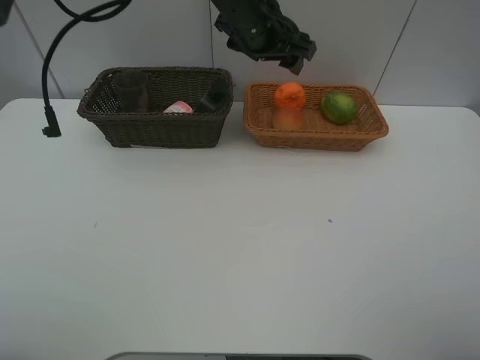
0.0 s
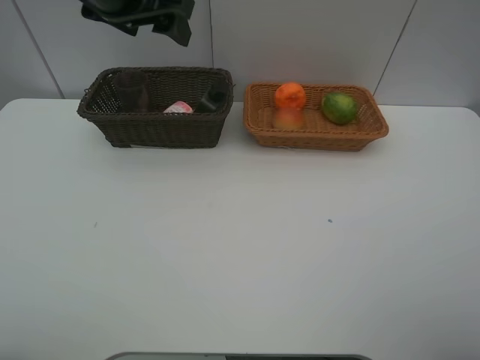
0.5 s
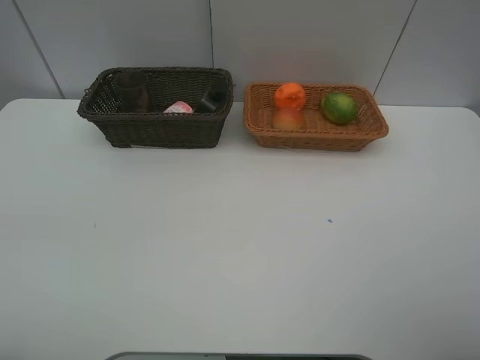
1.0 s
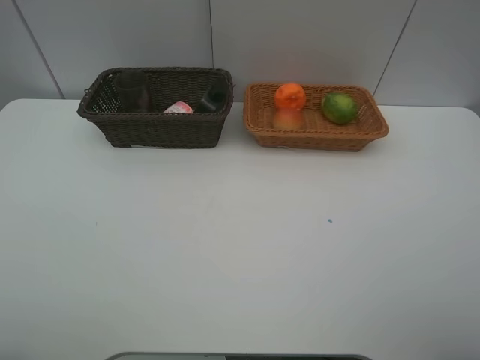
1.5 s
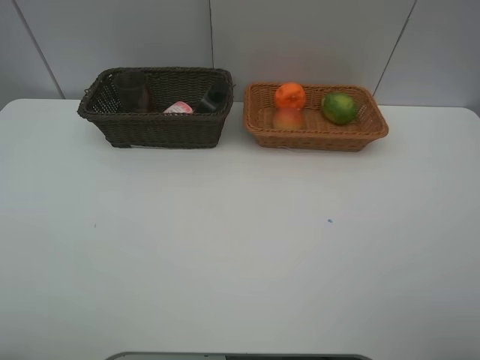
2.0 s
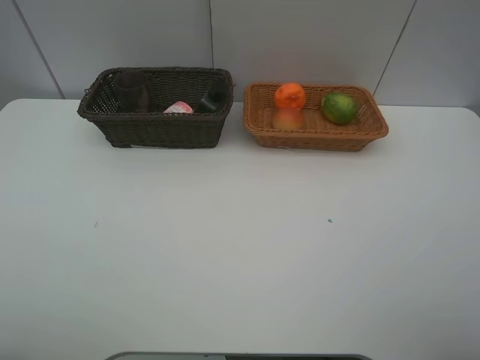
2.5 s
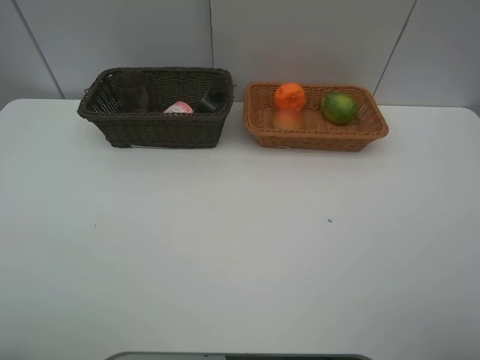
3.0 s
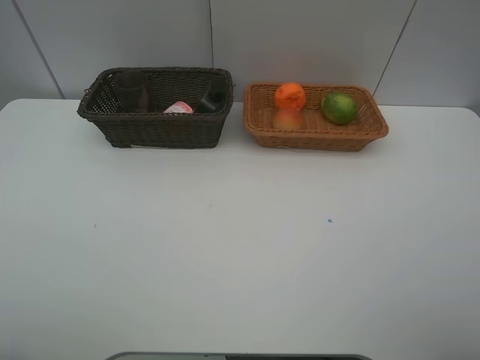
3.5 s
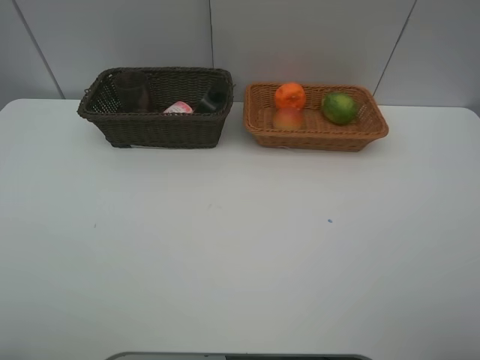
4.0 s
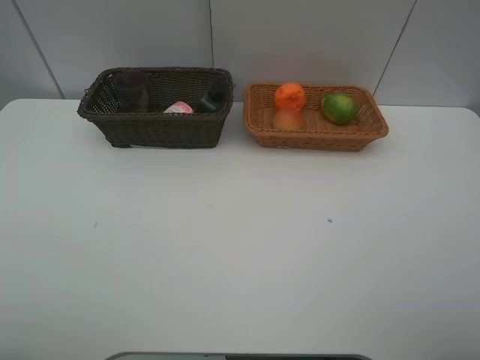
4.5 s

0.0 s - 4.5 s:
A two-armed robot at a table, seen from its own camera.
Task of the whole recording: place multiple objects separately in different baskets.
0.0 s - 2.0 s: The left gripper is displaced backward and to the left by some 50 cm.

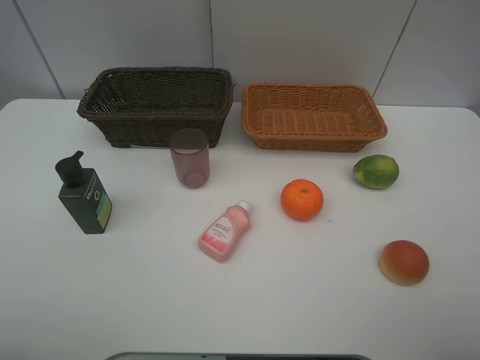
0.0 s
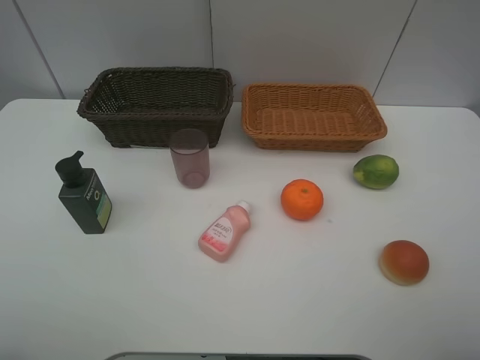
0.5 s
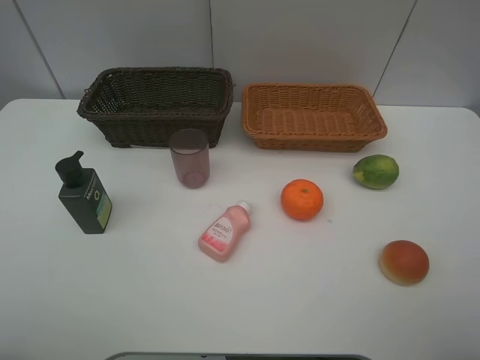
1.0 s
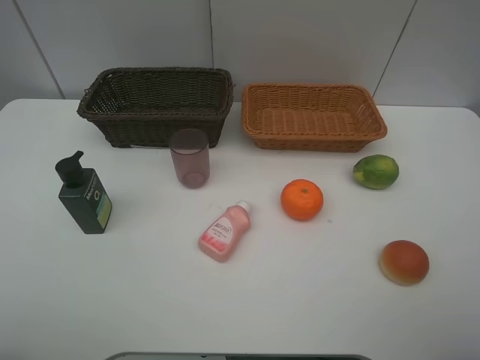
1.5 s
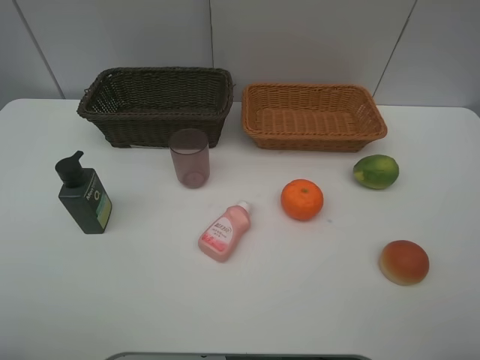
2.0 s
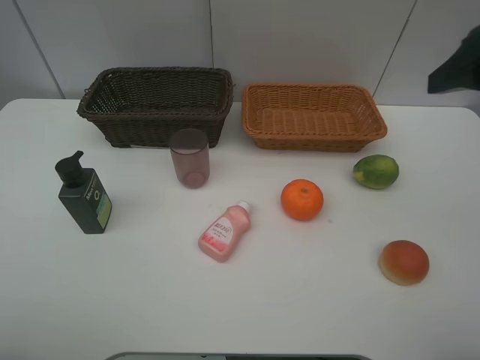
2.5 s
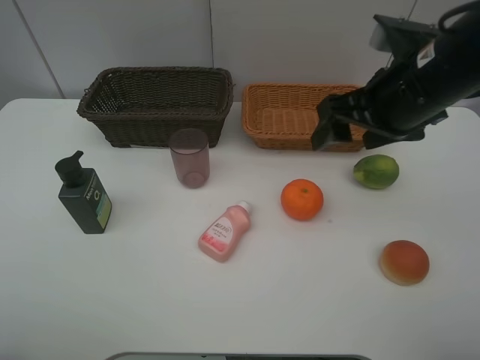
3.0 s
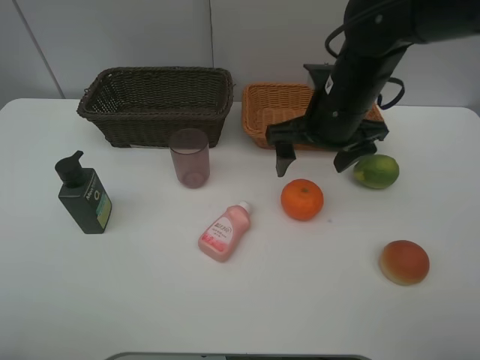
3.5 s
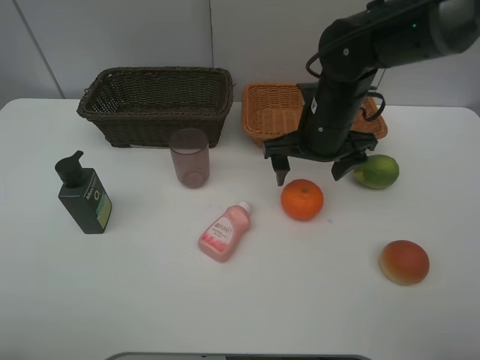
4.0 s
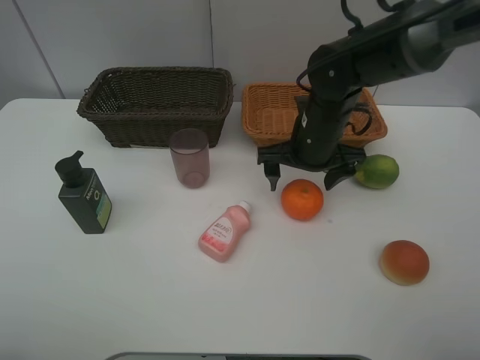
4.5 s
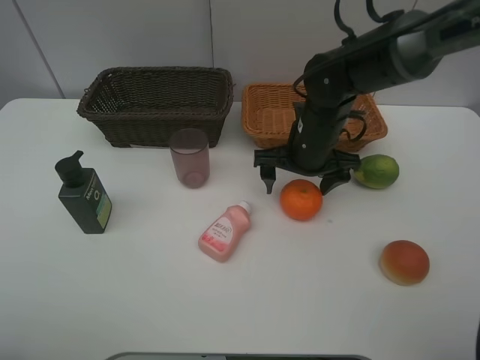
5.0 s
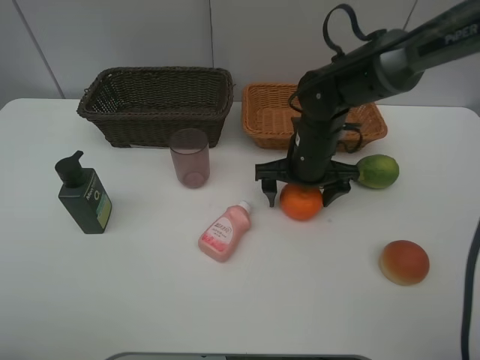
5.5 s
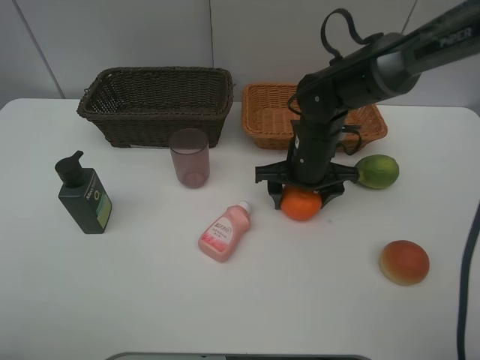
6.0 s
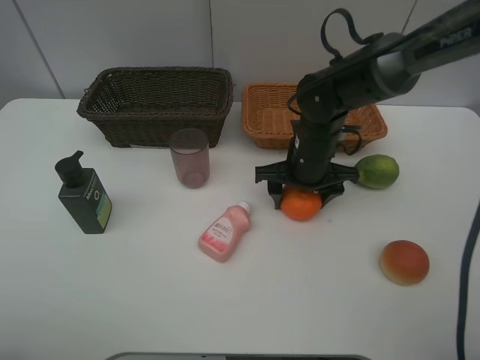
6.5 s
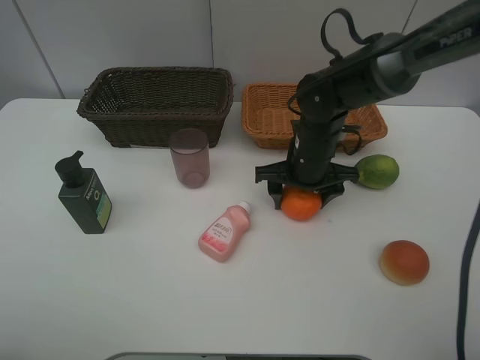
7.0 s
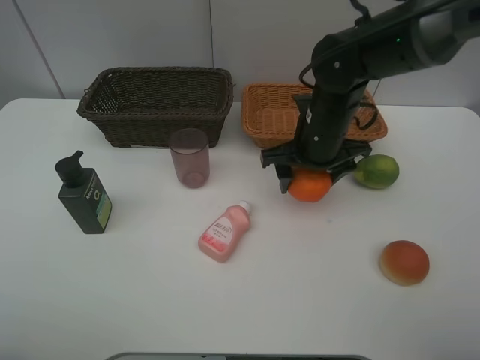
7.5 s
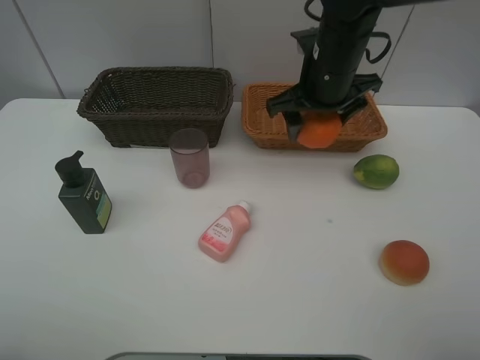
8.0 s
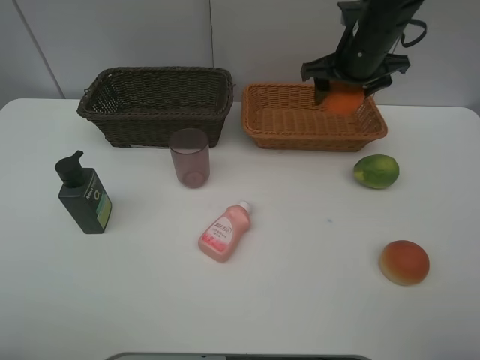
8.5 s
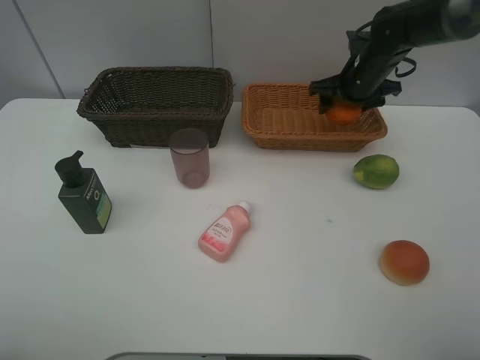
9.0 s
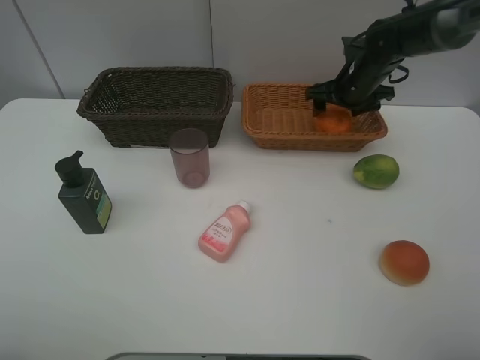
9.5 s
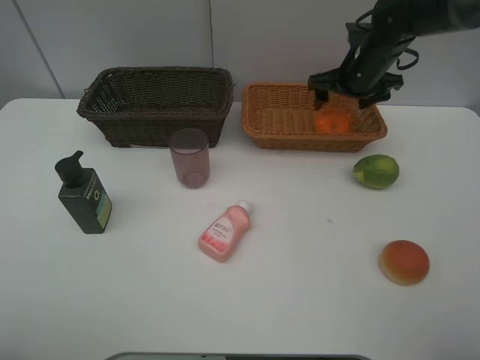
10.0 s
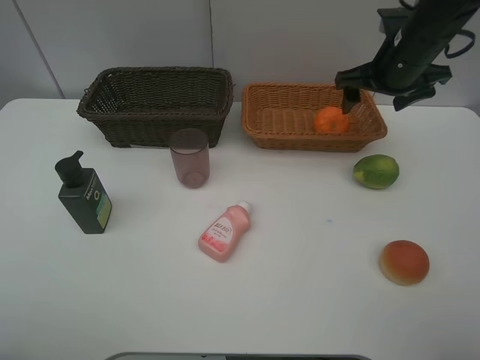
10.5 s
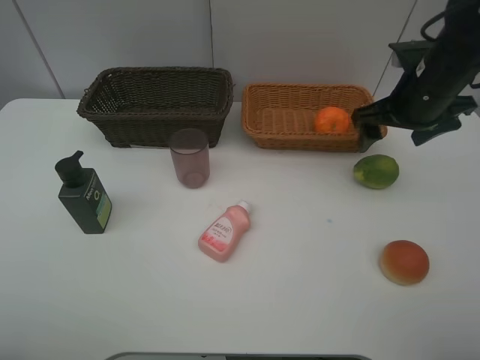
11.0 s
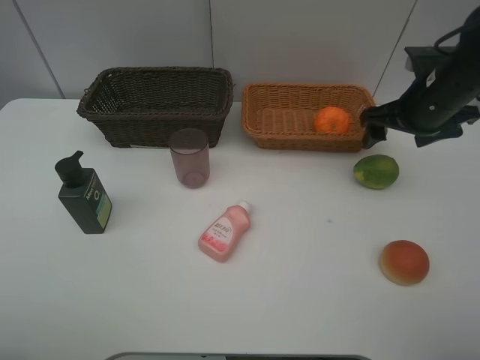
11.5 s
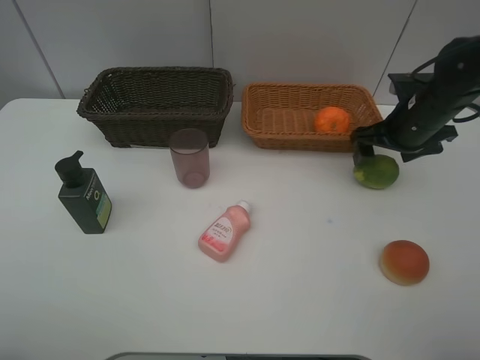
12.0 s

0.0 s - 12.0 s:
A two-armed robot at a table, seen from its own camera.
Task of the whole recording: place multiple objects separately in different baskets.
Step, 0.0 s - 7.0 s: Pick up the orange with right gripper.
Step, 7.5 s - 10.0 s: Place the orange in the light basket with right gripper.
2.0 s - 4.0 s: The right gripper heads forward, downward and to the left, covering approximately 35 cm, and opens its fingers.
4.0 s - 6.0 s: The right gripper is displaced downward by roughly 5 cm, and closes.
6.0 s - 8.0 s: The right gripper travels upward by approximately 15 cm.
8.0 s - 10.0 s: The right gripper shifts roughly 15 cm to the right and forward, and opens.
10.0 s - 12.0 s: The right gripper goes some 10 cm backward and to the right.

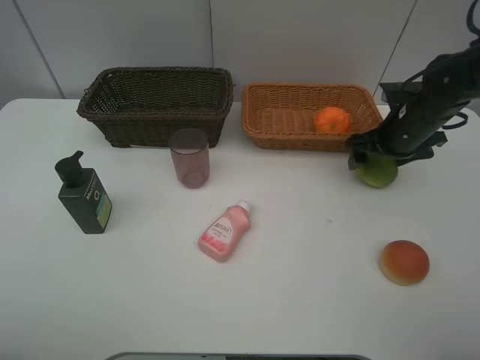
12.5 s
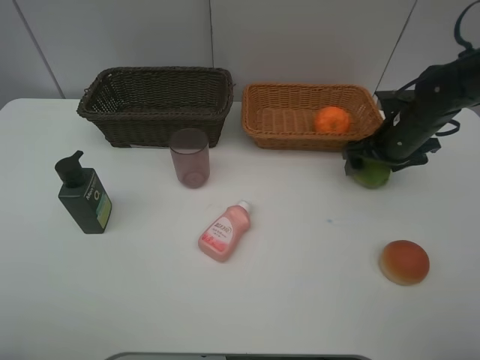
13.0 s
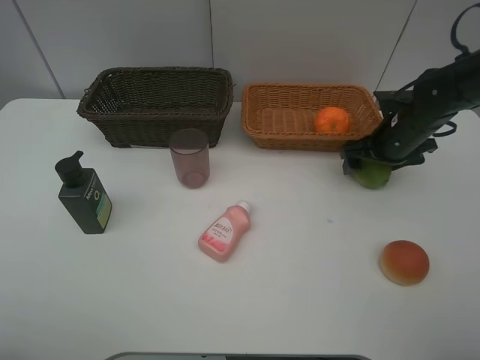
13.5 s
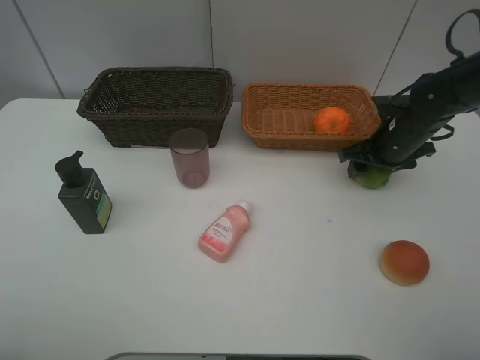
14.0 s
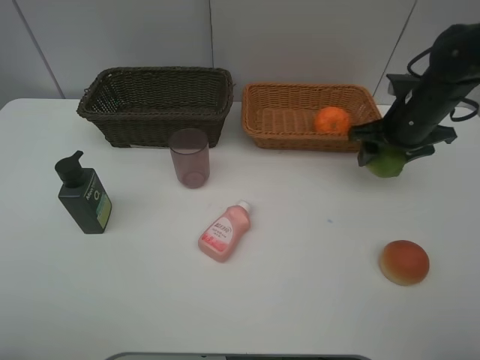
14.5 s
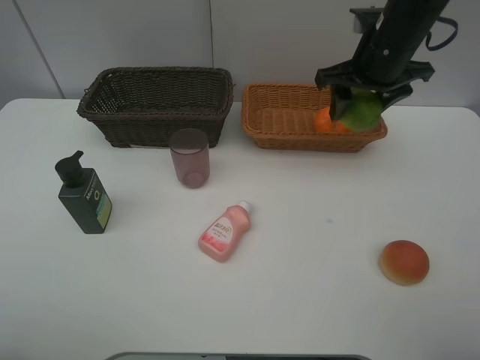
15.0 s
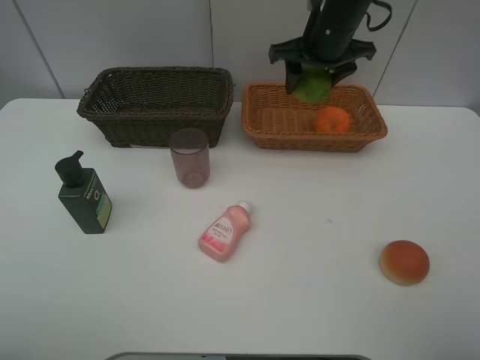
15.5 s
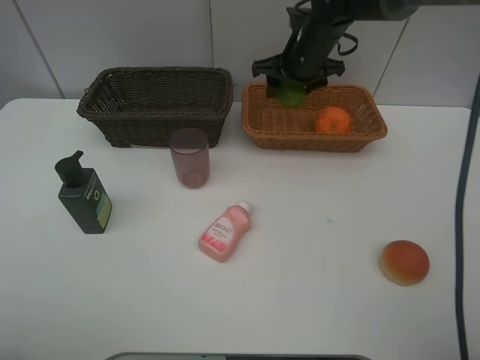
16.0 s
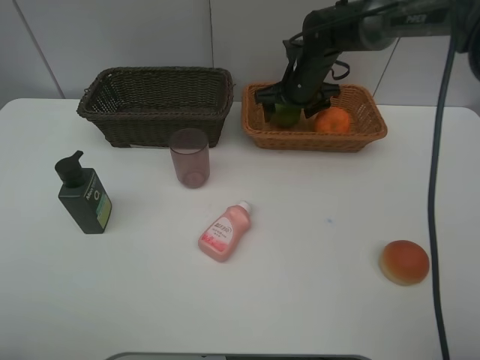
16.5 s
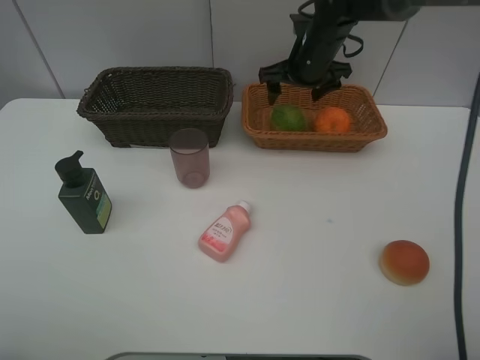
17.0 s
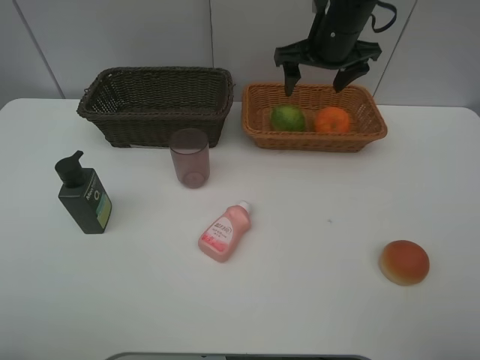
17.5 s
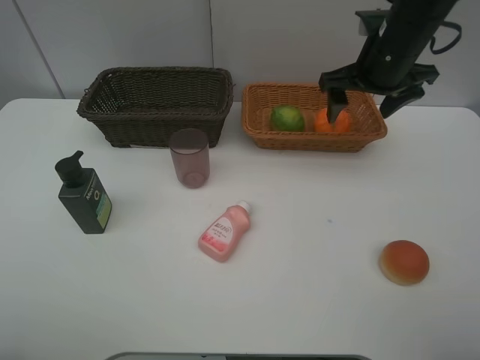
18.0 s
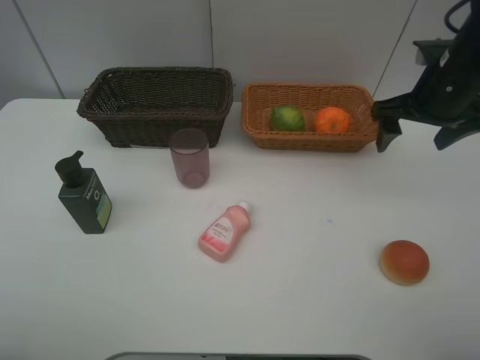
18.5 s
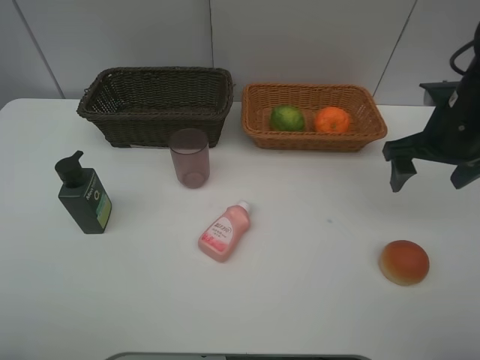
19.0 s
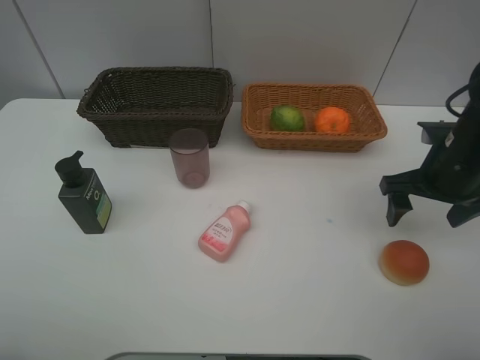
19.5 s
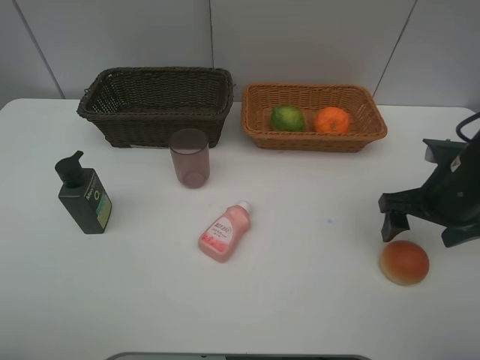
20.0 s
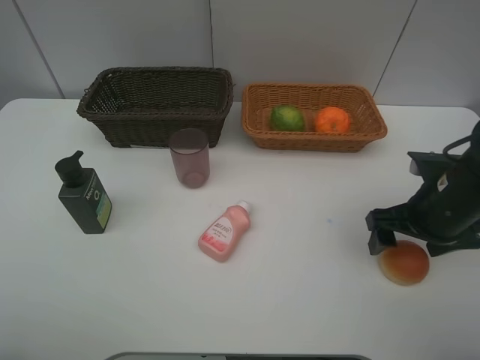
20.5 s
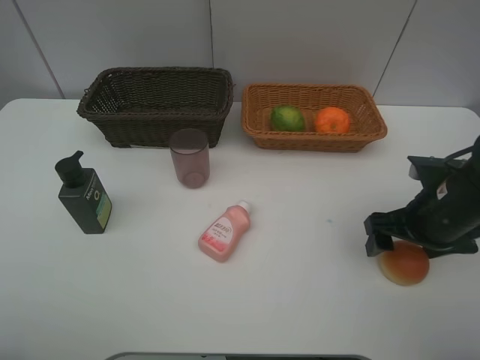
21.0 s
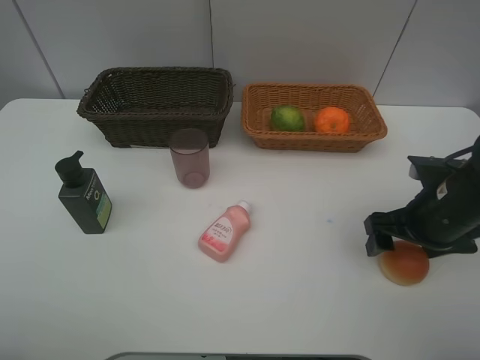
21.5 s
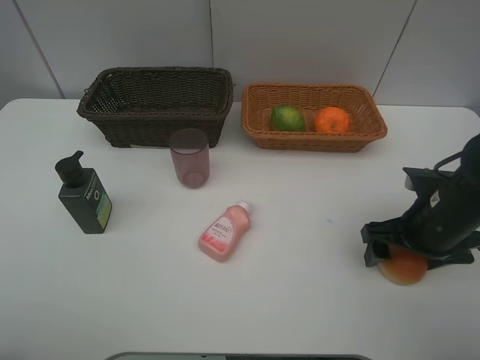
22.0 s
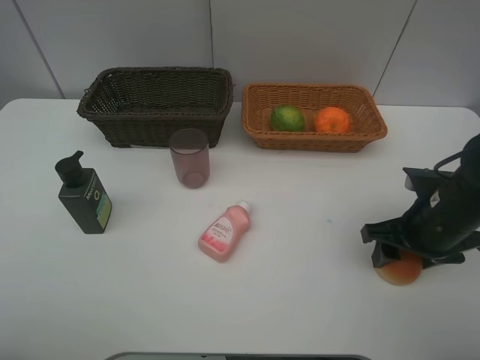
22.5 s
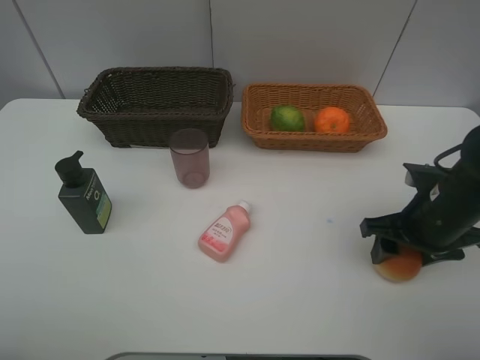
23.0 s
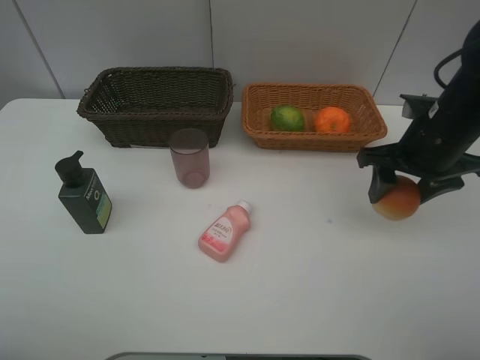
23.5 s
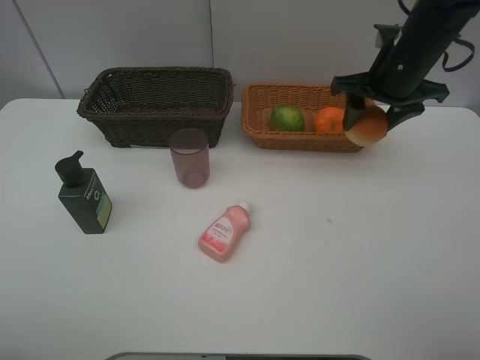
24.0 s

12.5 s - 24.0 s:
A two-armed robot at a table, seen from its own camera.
Task of the whole recording: place multiple objects separately in different baskets.
Step, 14.5 s - 16.5 s: Place the lime in the light basket with right gripper.
Step, 17.0 s - 23.0 s: Pick up the bread with right gripper.
12.5 s - 14.5 s: The right gripper closes.
14.5 s - 16.5 s: The right gripper heads to the left and forward, covering roughly 20 cm, and opens up.
16.5 s - 18.5 s: The right gripper is displaced backward, to the right and upward by some 20 cm.
18.5 s - 20.0 s: The right gripper moves backward and downward, some 10 cm.
20.0 s - 22.0 s: The grippers stay close to where they were, moving slightly.
22.0 s - 24.0 s: The right gripper moves forward and upward, roughly 20 cm, and closes.
